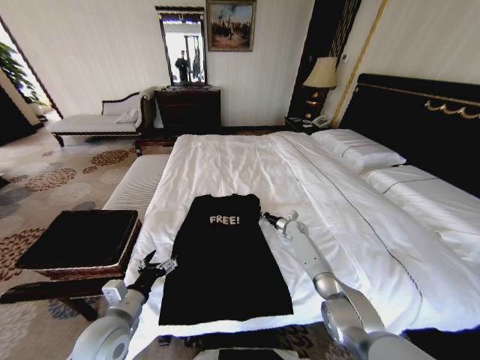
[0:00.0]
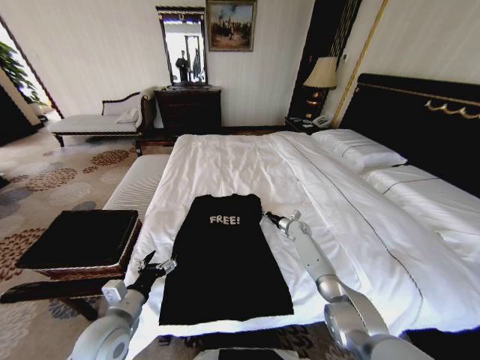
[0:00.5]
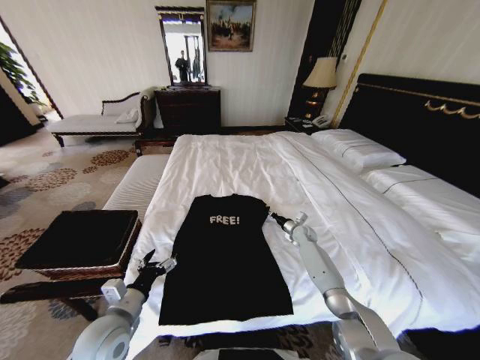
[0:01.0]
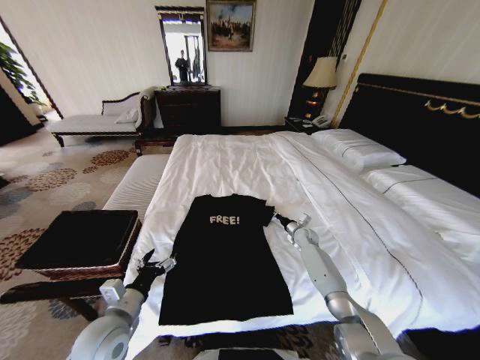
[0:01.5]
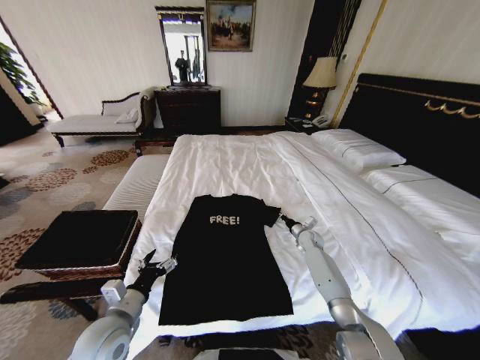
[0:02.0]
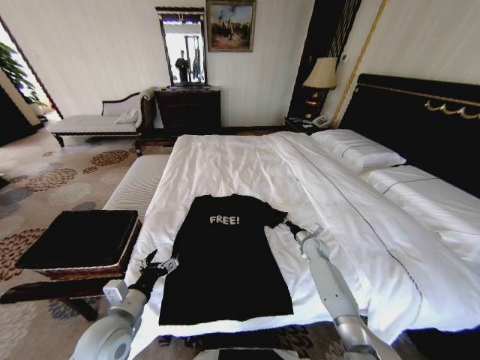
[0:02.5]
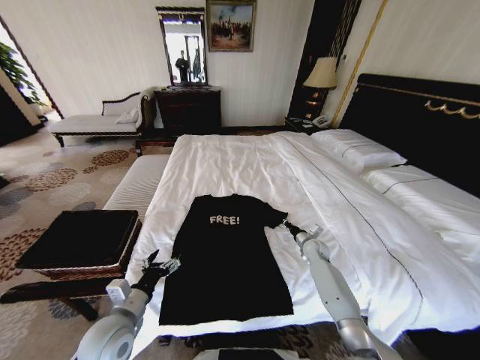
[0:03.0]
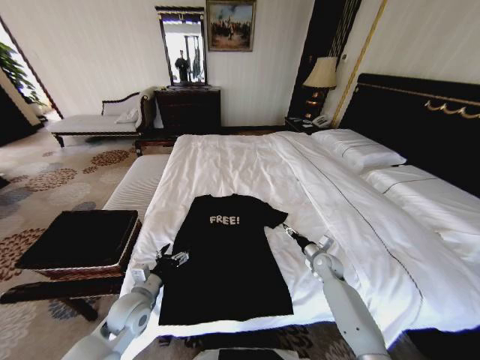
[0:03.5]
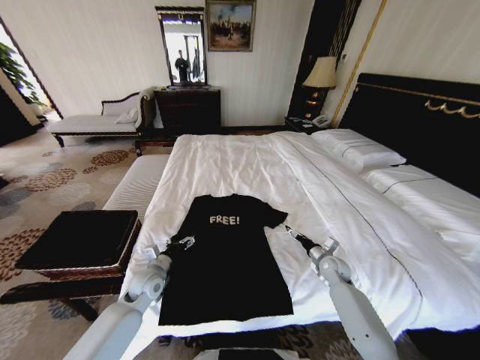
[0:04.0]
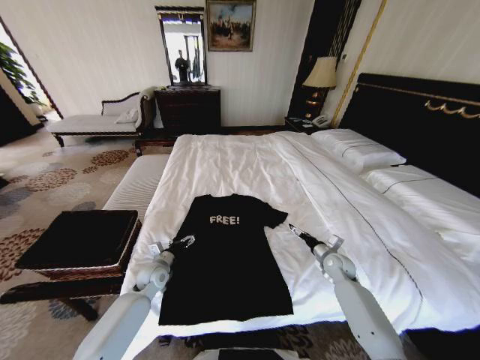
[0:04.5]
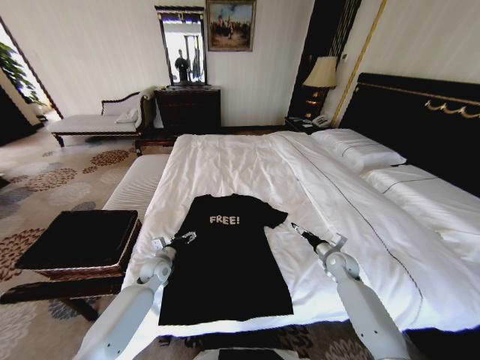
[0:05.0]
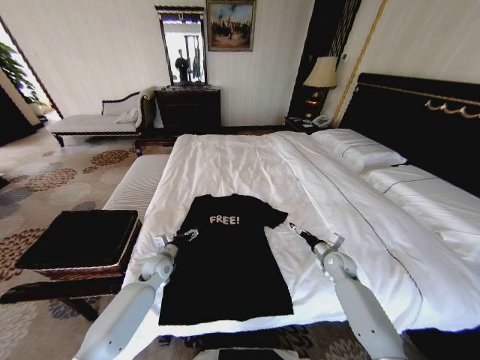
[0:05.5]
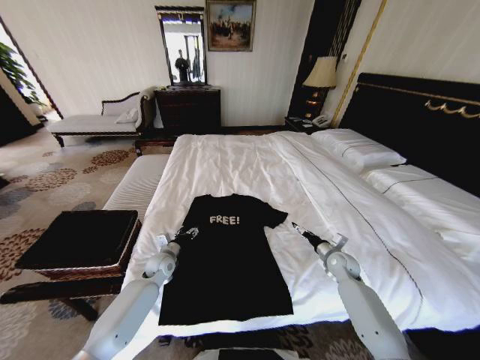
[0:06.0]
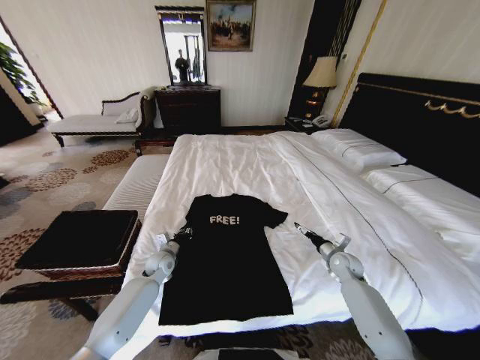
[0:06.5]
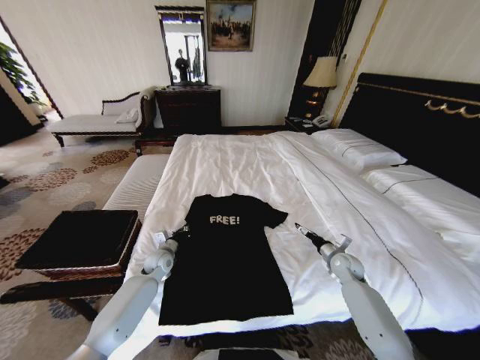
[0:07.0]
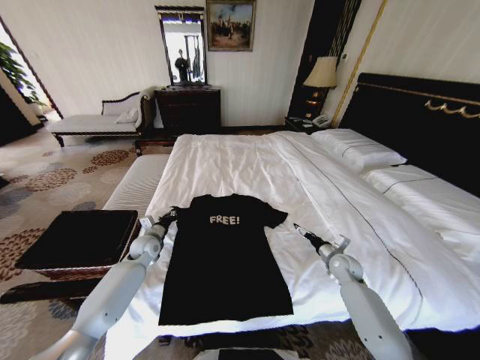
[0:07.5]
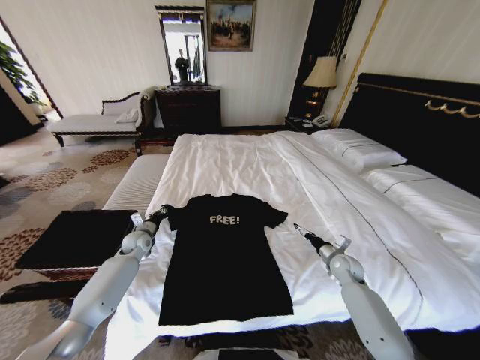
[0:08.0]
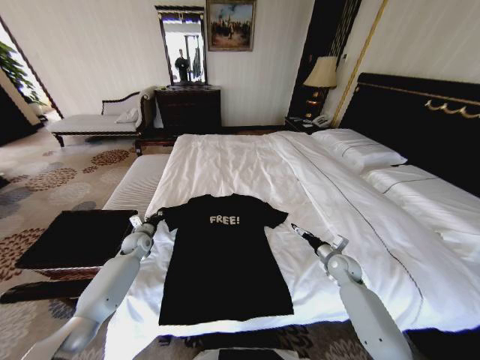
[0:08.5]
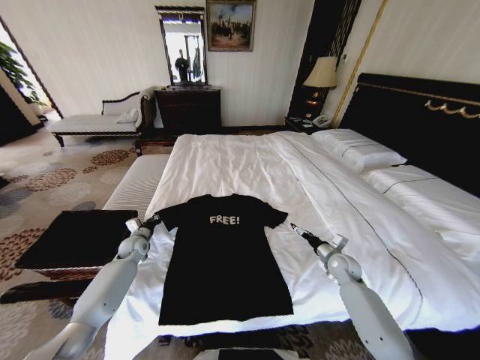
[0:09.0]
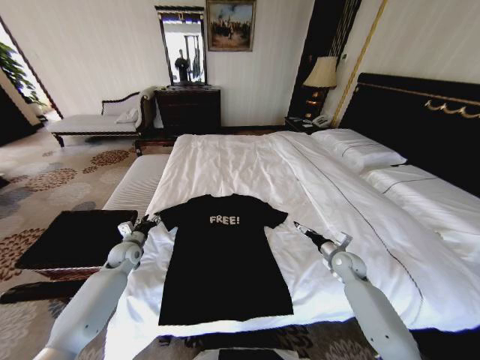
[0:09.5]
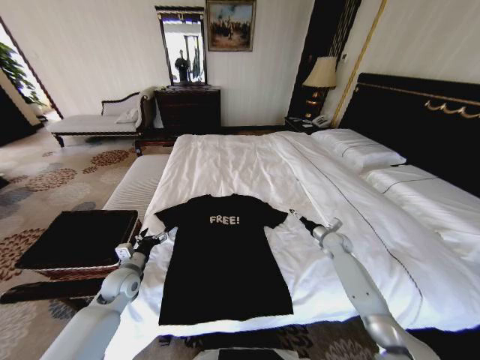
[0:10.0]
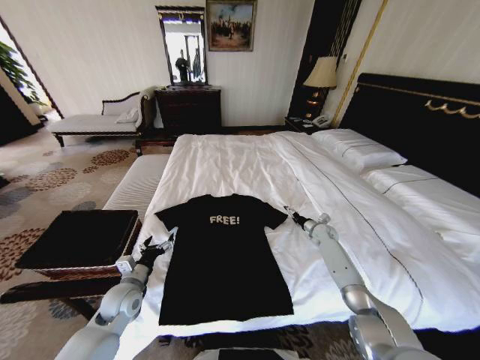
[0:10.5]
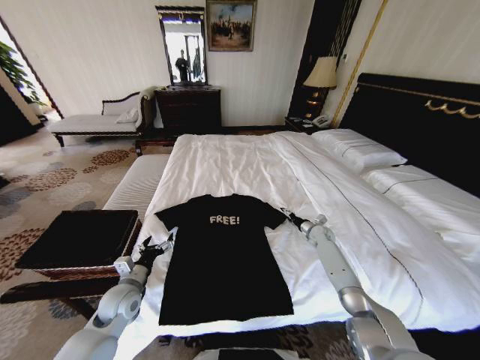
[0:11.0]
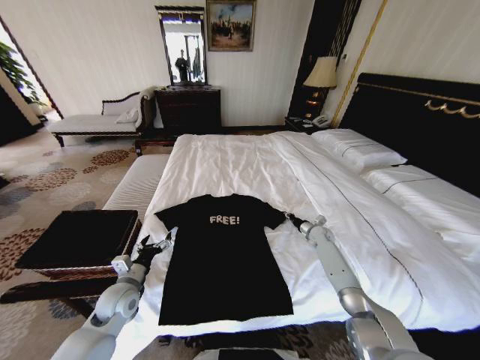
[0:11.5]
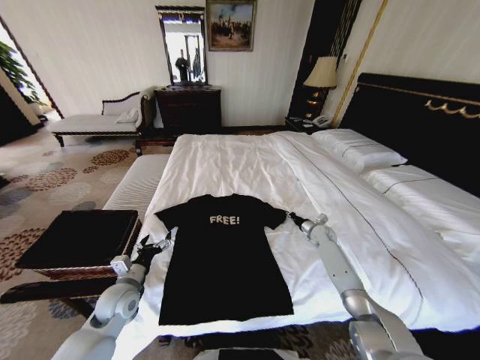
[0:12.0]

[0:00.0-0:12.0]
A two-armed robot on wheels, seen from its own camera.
Task of the whole recording: Fold the clothes on the bed and place them into the basket.
0:00.0 to 0:02.0: The right gripper heads backward, covering approximately 5 cm.
0:02.0 to 0:04.0: The left gripper shifts about 15 cm forward and downward. The right gripper travels backward by approximately 15 cm, and opens up.
0:04.0 to 0:06.0: The left gripper goes some 10 cm forward.
0:06.0 to 0:08.0: The left gripper shifts roughly 10 cm to the left and forward, and closes.
0:08.0 to 0:10.0: The right gripper shifts some 10 cm forward. The left gripper goes approximately 15 cm backward, and opens its fingers.
0:10.0 to 0:12.0: The left gripper travels backward by about 5 cm. The right gripper moves forward, roughly 5 cm, and closes.

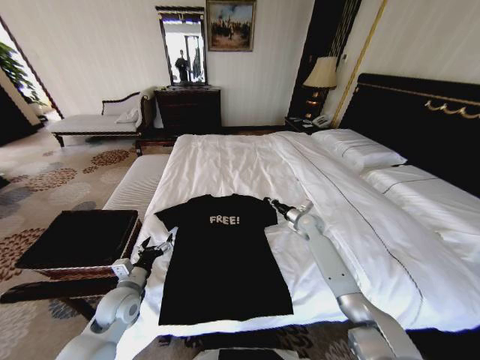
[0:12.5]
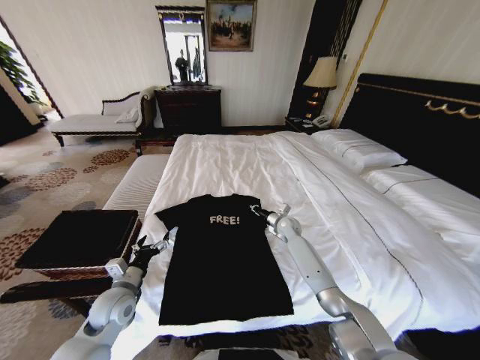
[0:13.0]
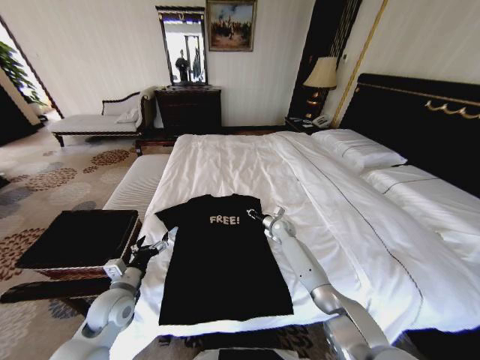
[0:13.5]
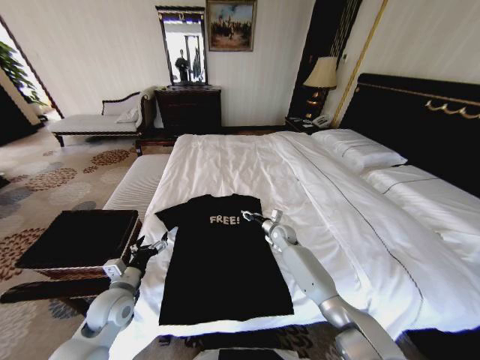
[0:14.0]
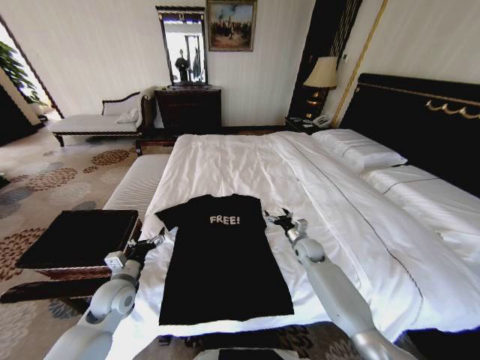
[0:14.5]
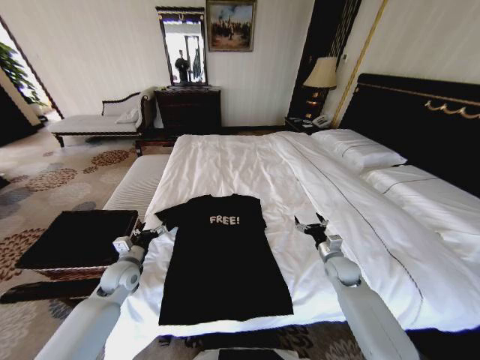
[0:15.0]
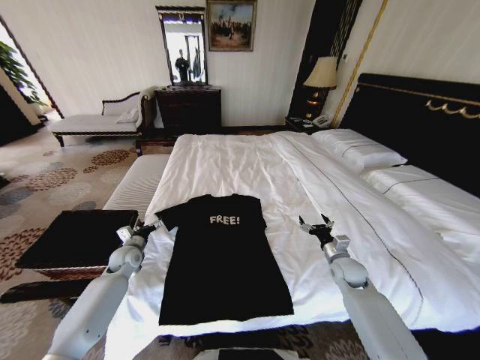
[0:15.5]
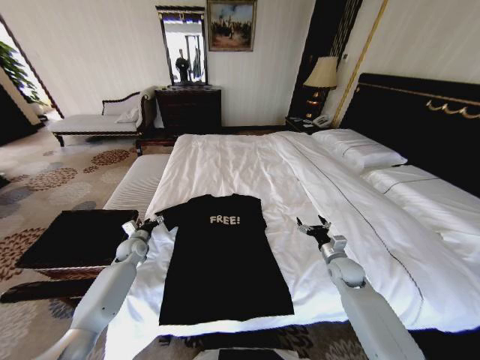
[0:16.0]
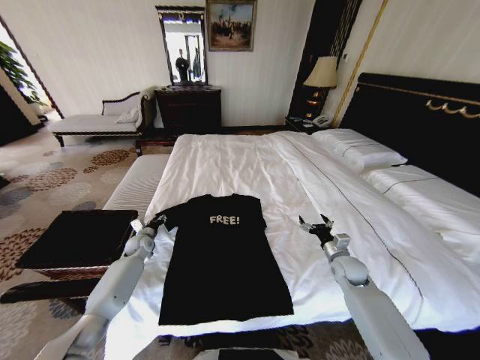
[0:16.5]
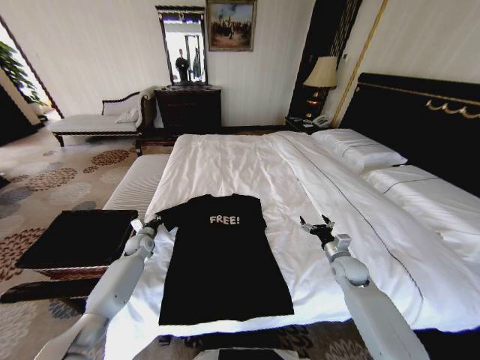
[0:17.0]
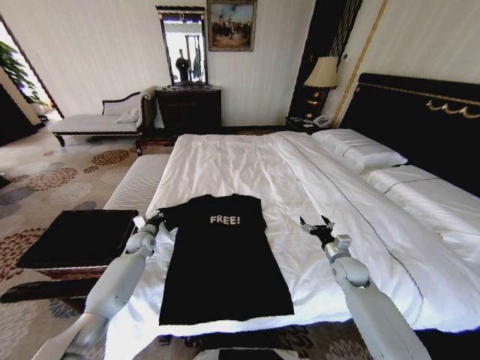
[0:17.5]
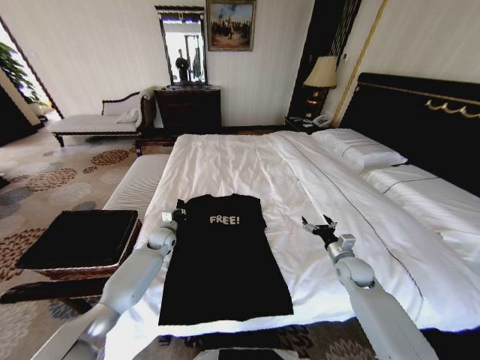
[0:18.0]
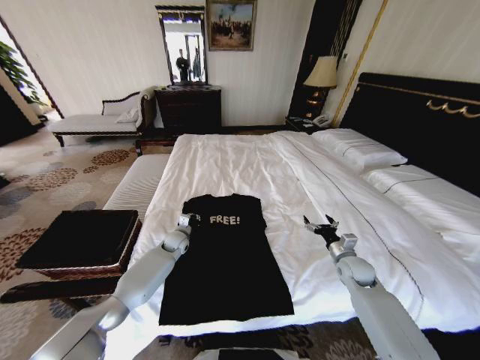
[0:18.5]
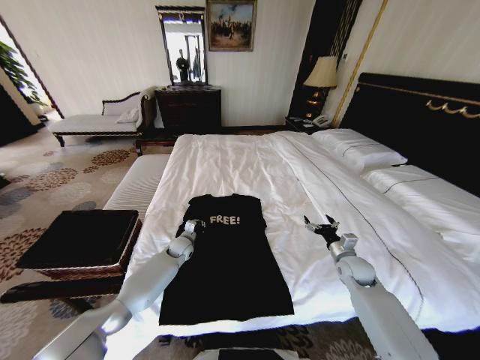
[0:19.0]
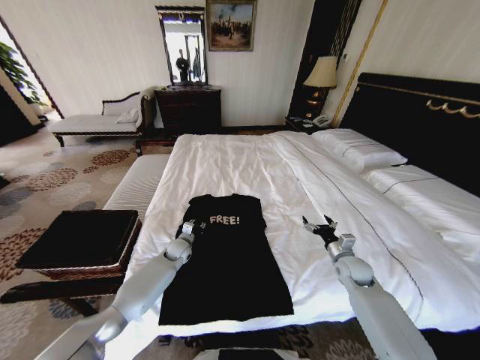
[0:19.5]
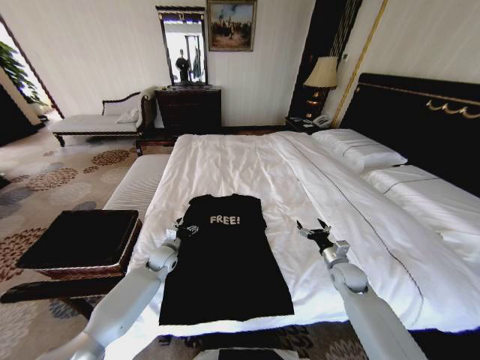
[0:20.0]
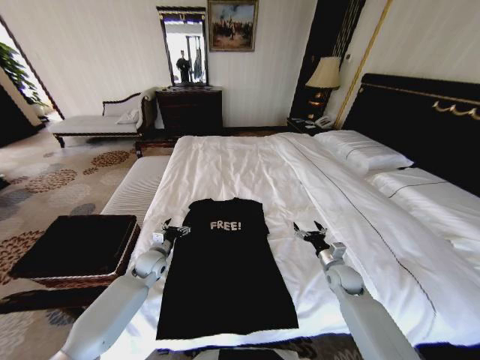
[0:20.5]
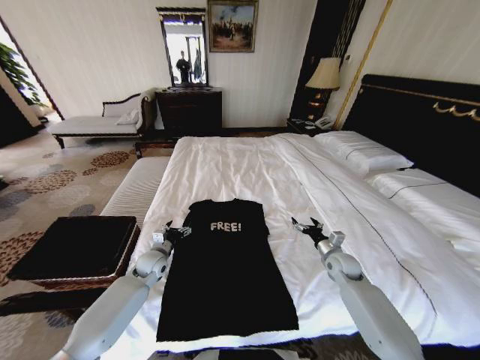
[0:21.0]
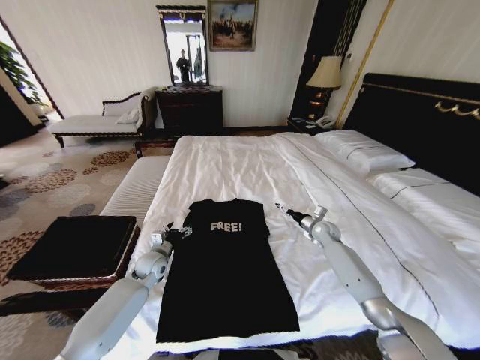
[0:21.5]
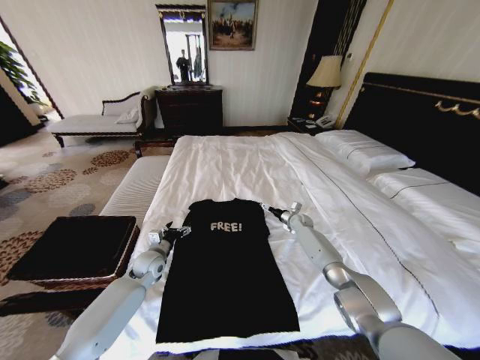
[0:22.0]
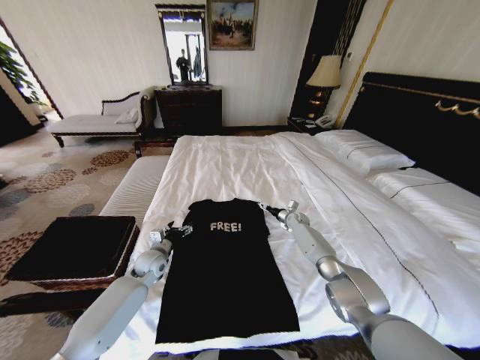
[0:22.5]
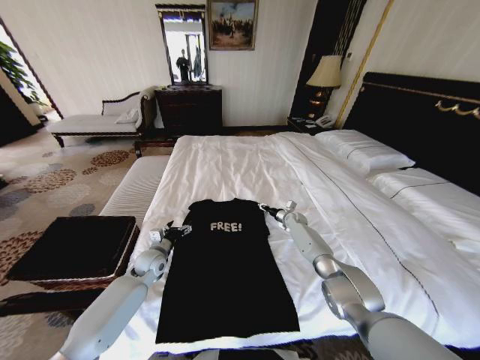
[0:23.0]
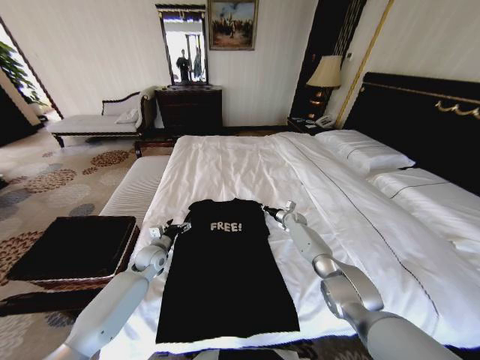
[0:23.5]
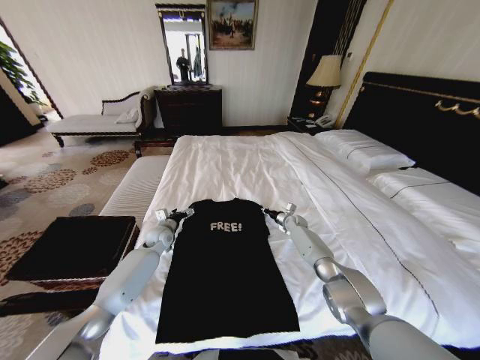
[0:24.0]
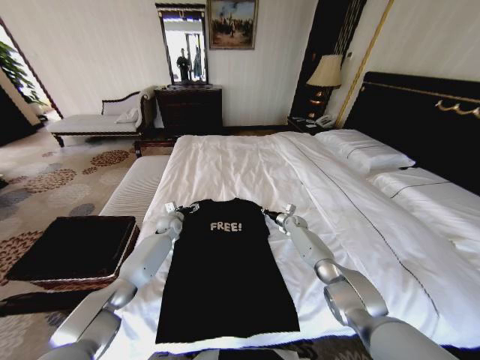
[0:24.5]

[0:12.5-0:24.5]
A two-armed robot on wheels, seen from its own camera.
Task of the whole recording: Fold the clothes on the bed and place them into the basket.
0:12.5 to 0:14.5: The right gripper is displaced backward and downward by some 10 cm, moves some 10 cm to the left and comes back, and opens its fingers.
0:14.5 to 0:16.5: The right gripper shifts some 15 cm to the right and backward. Meanwhile the left gripper shifts about 20 cm forward, and closes.
0:16.5 to 0:18.5: The left gripper shifts about 15 cm to the right, and closes up.
0:18.5 to 0:20.5: The left gripper heads backward and to the left, covering roughly 10 cm, and opens its fingers.
0:20.5 to 0:22.5: The right gripper goes about 25 cm forward.
0:22.5 to 0:24.5: The right gripper closes its fingers. Meanwhile the left gripper travels forward by roughly 15 cm.

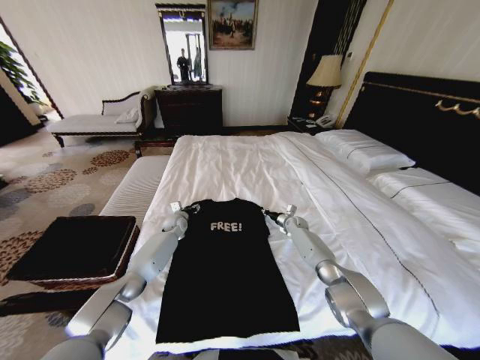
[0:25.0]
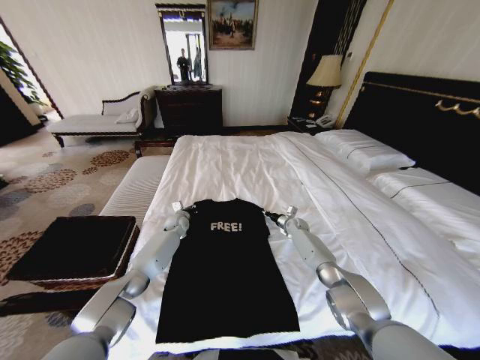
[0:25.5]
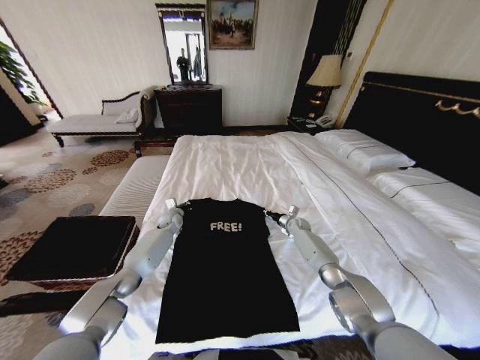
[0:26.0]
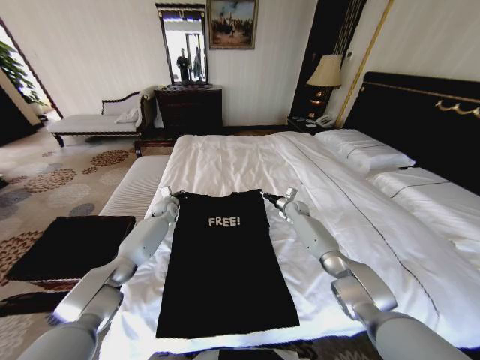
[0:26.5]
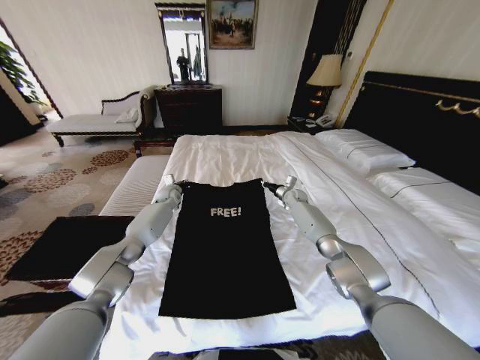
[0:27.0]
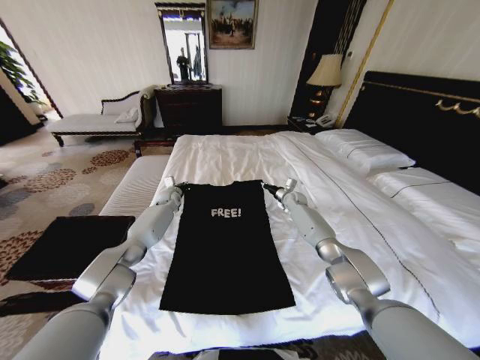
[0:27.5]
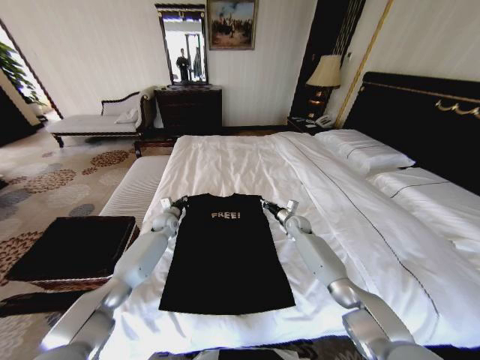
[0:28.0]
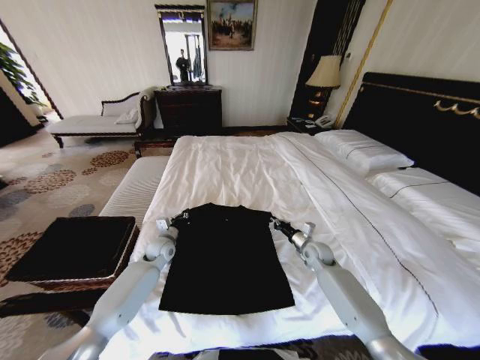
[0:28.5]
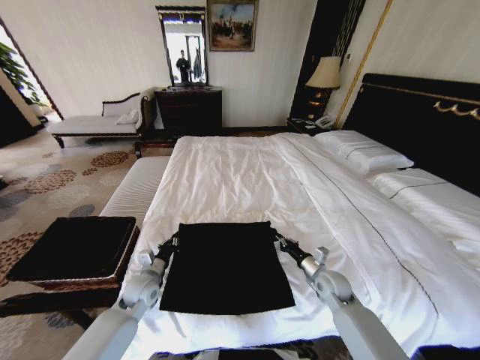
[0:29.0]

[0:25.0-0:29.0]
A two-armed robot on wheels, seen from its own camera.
Task of the whole recording: Fold the clothes on the bed and place them into the basket.
0:25.0 to 0:27.0: Both grippers travel together upward and forward, roughly 15 cm. The left gripper closes its fingers.
0:27.0 to 0:29.0: The grippers both shift backward by some 35 cm.
